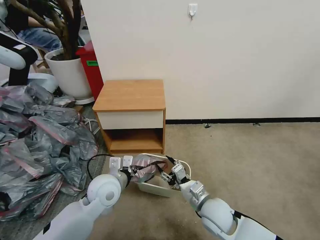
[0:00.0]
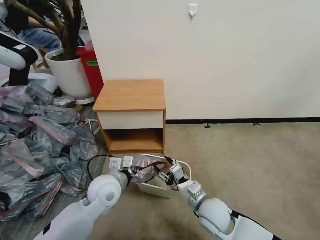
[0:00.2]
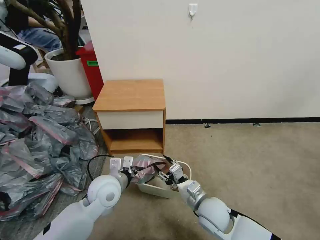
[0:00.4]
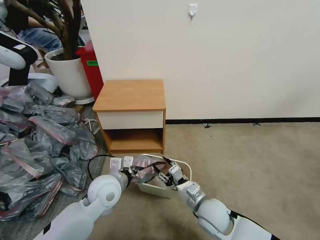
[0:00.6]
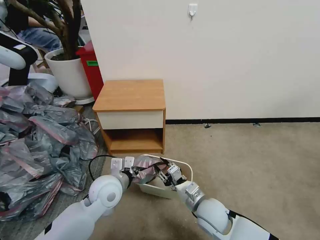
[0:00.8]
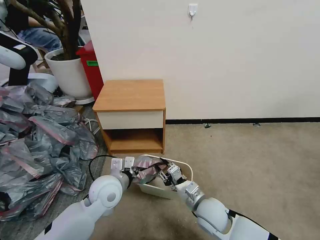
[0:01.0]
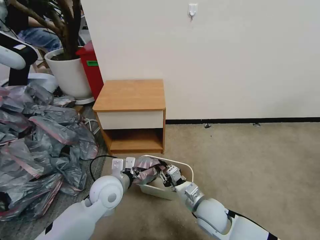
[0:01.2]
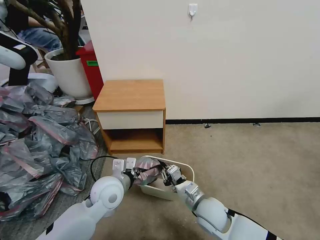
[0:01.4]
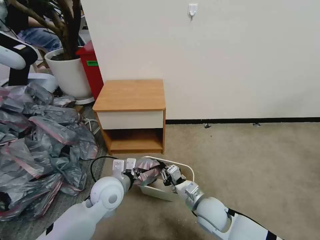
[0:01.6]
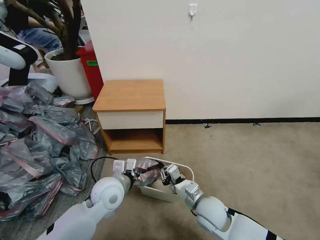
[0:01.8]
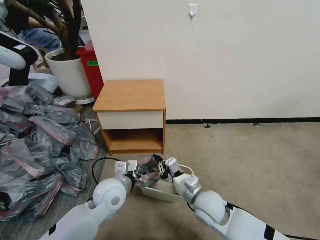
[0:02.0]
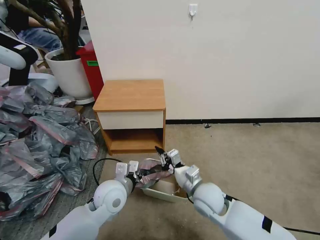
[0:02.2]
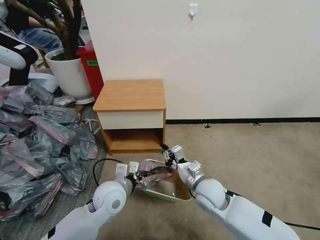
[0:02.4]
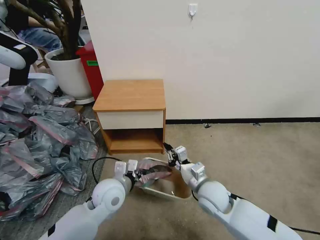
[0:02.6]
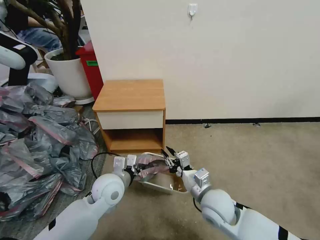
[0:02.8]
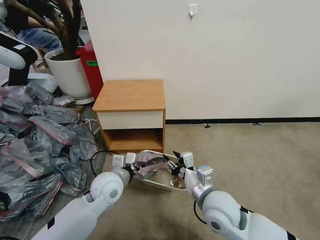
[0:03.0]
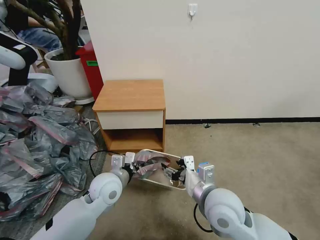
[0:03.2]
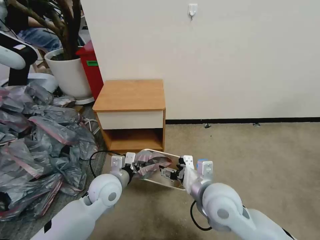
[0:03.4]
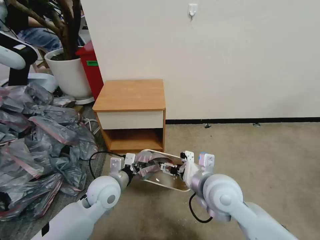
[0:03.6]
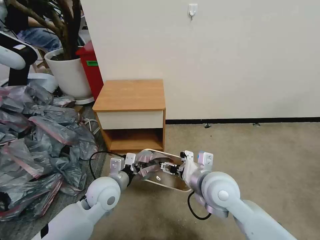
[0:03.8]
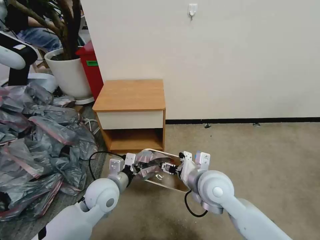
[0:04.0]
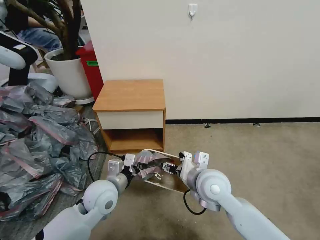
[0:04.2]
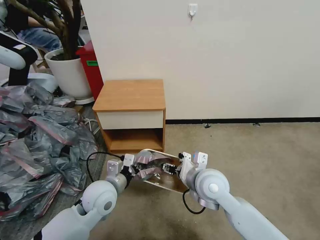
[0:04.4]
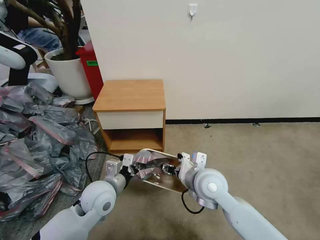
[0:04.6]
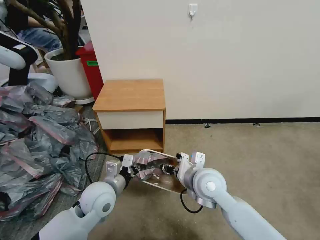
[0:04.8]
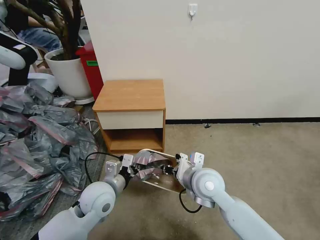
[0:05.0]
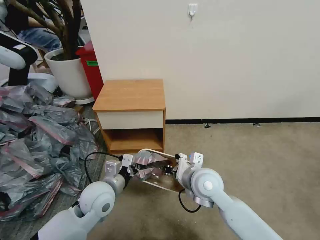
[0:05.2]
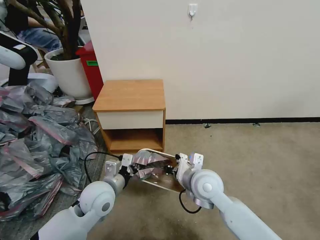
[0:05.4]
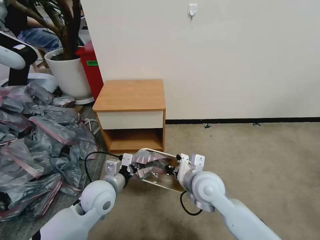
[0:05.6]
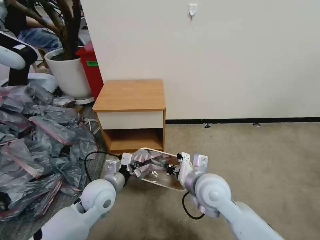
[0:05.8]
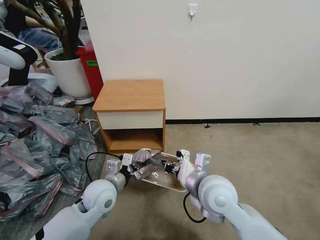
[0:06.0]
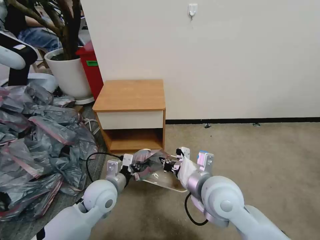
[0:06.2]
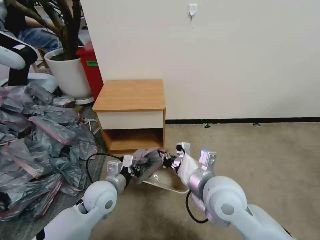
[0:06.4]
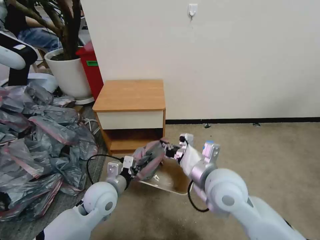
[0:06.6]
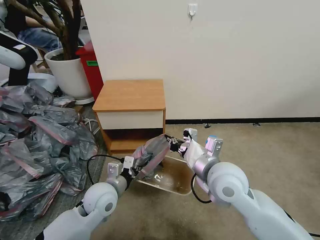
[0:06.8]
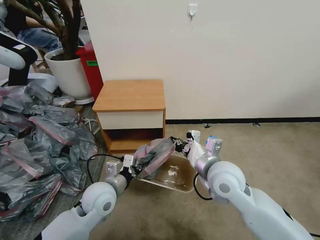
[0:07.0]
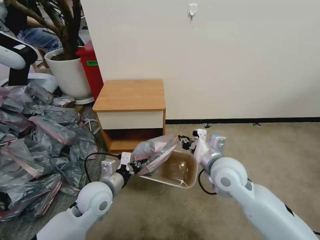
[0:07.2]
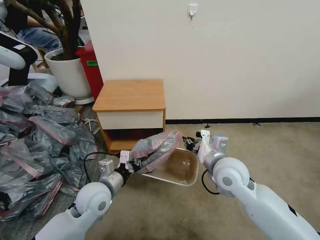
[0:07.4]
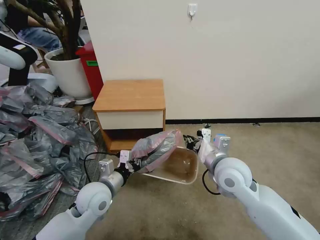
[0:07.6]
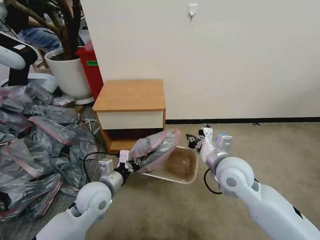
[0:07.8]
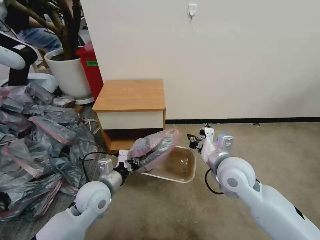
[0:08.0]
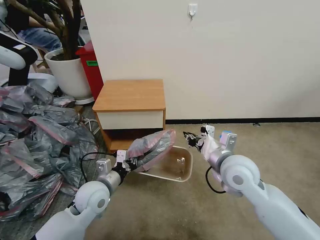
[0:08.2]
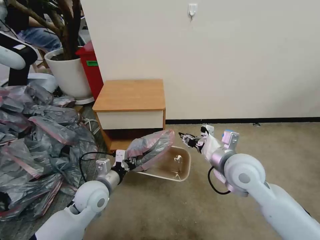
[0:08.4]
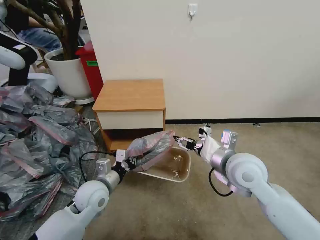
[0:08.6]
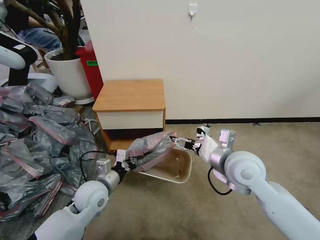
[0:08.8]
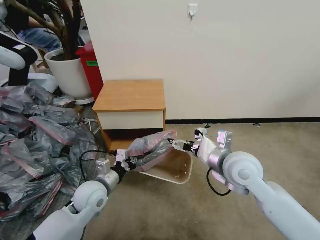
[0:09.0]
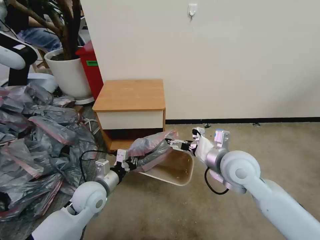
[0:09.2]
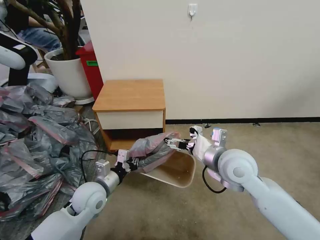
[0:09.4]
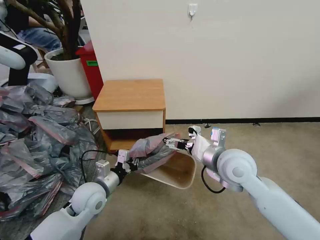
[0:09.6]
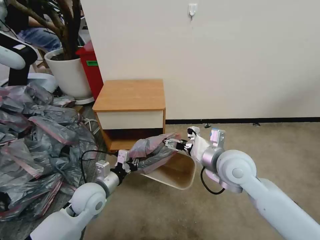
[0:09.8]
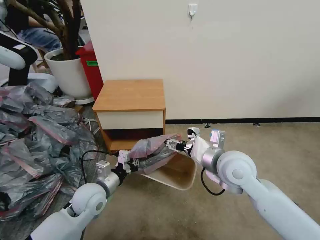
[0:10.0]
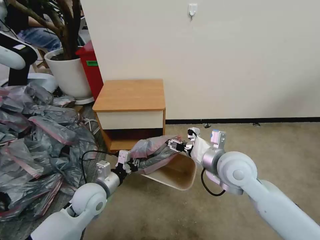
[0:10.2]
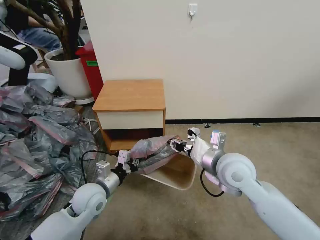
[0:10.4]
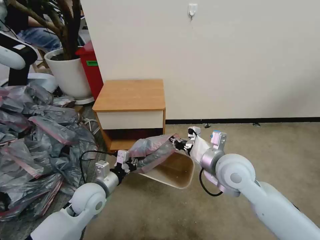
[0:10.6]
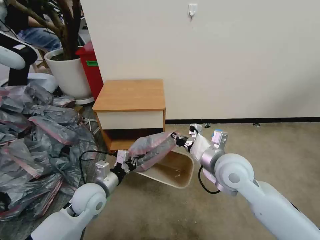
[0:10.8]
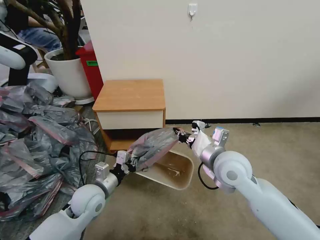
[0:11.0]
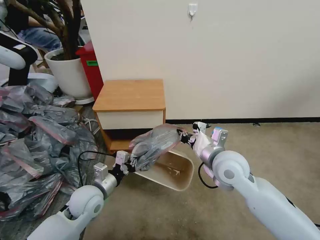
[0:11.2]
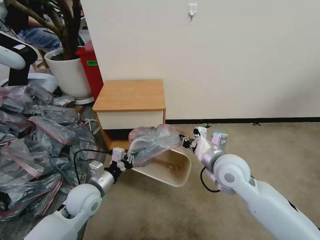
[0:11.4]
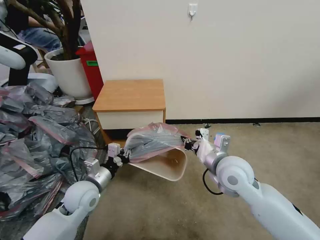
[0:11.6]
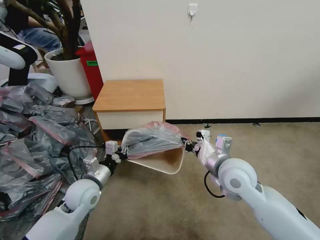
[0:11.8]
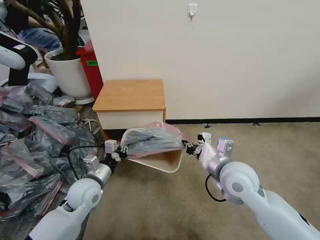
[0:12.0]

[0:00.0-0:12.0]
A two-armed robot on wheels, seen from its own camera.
Task of the whole recording: Pick up the garbage bag from the table and place it over the trash can.
0:00.0 to 0:01.6: The right gripper closes.
0:01.6 to 0:03.0: The right gripper goes about 10 cm upward, and opens its fingers.
0:03.0 to 0:04.4: The right gripper travels forward by approximately 5 cm.
0:04.4 to 0:06.0: The right gripper ends up approximately 5 cm from where it was, and closes.
0:06.0 to 0:07.6: The right gripper travels to the right and forward by about 10 cm.
0:07.6 to 0:09.0: The right gripper opens.
0:09.0 to 0:10.4: The right gripper closes up.
0:10.4 to 0:12.0: The grippers move only a little.

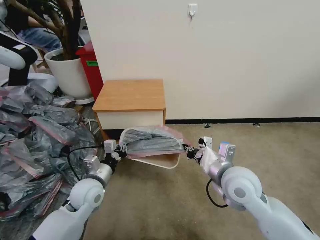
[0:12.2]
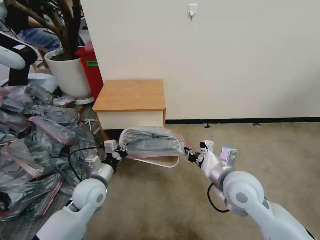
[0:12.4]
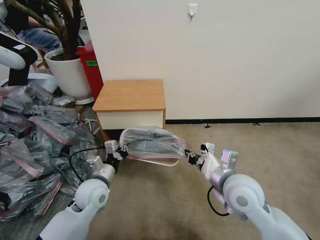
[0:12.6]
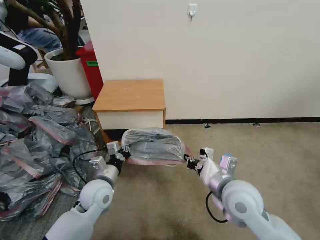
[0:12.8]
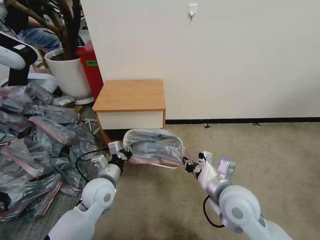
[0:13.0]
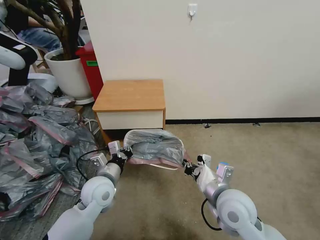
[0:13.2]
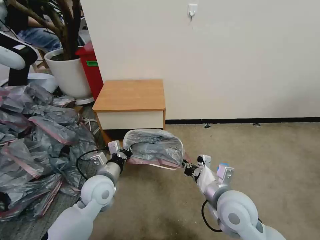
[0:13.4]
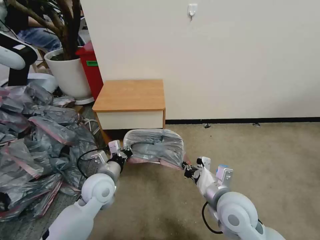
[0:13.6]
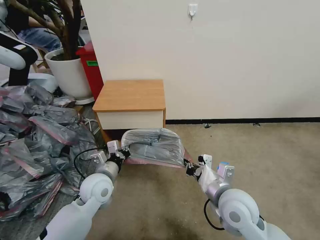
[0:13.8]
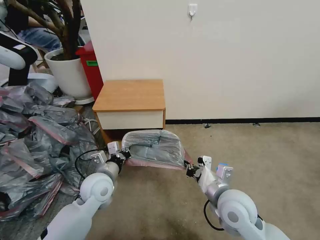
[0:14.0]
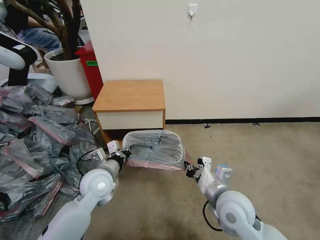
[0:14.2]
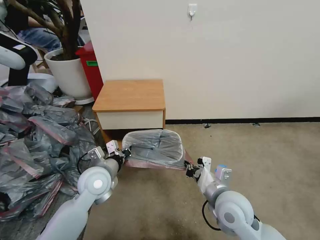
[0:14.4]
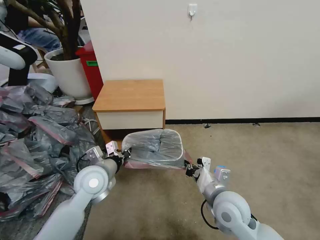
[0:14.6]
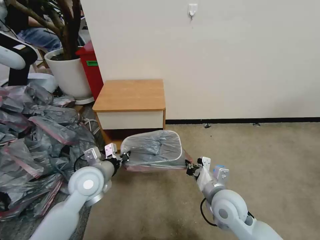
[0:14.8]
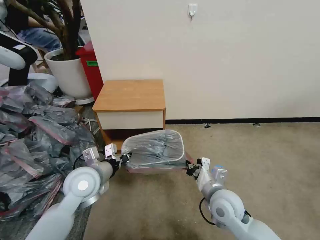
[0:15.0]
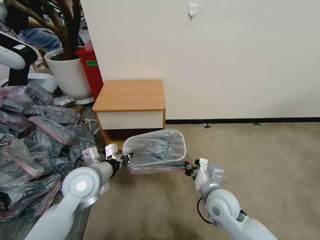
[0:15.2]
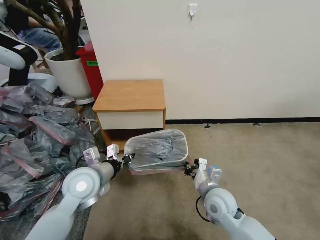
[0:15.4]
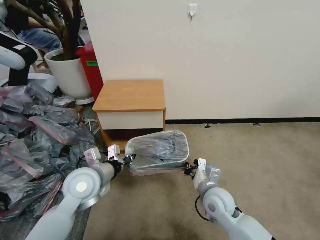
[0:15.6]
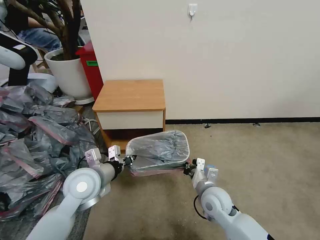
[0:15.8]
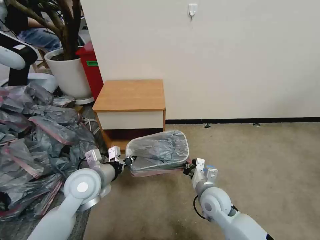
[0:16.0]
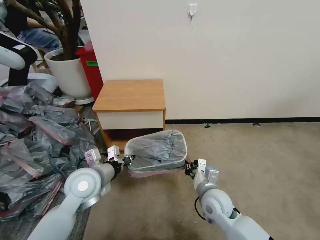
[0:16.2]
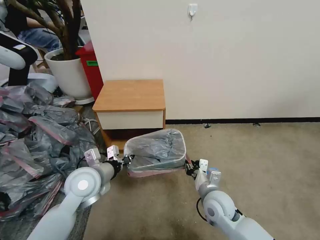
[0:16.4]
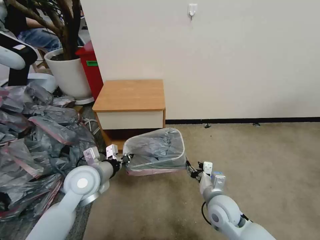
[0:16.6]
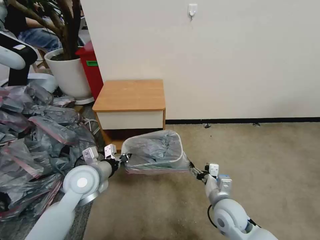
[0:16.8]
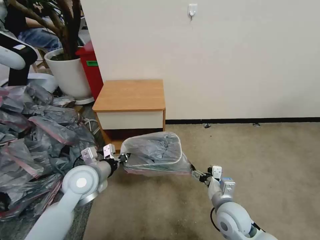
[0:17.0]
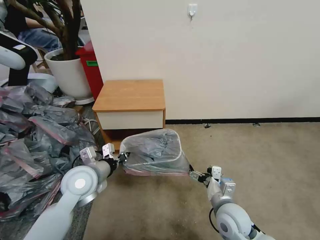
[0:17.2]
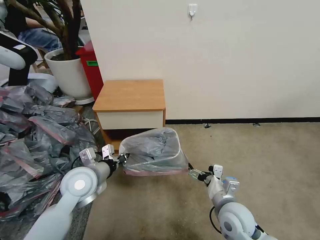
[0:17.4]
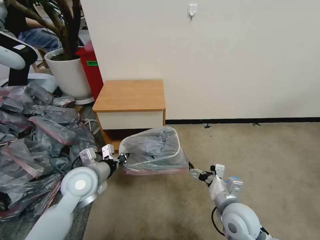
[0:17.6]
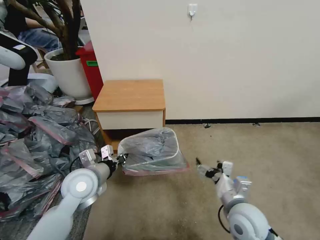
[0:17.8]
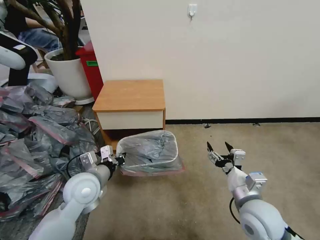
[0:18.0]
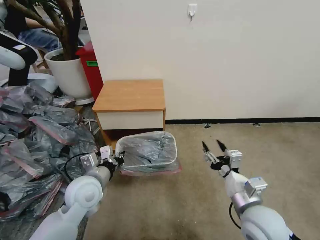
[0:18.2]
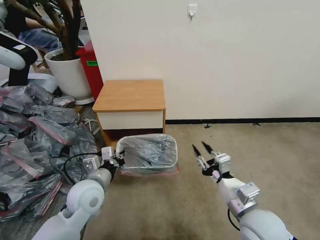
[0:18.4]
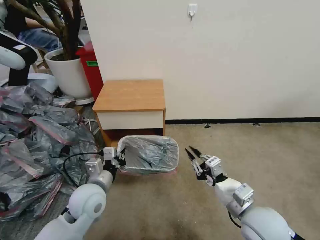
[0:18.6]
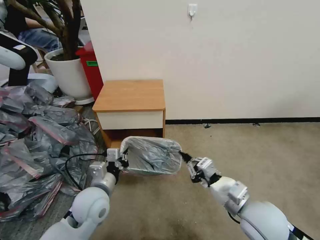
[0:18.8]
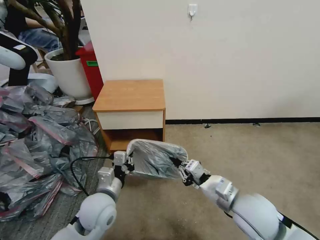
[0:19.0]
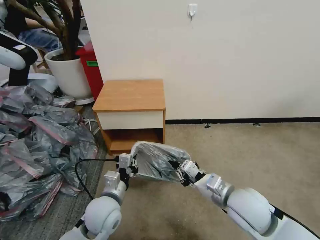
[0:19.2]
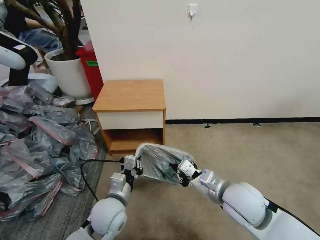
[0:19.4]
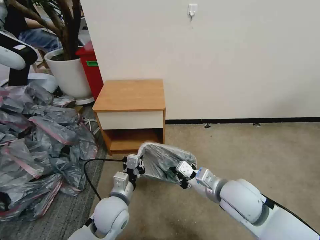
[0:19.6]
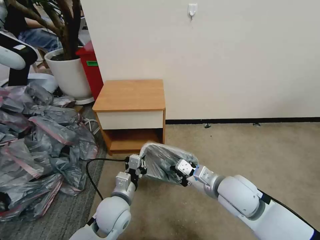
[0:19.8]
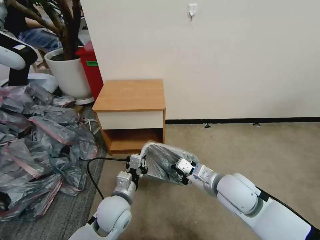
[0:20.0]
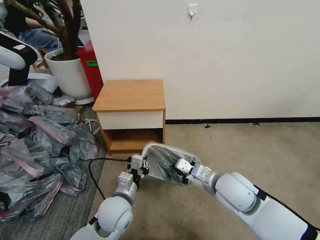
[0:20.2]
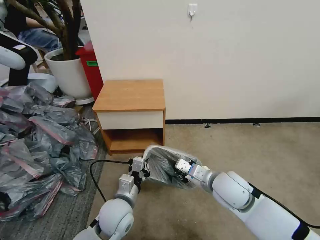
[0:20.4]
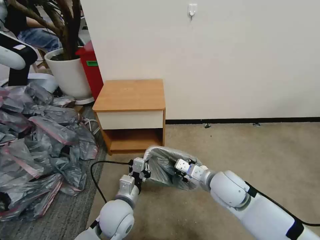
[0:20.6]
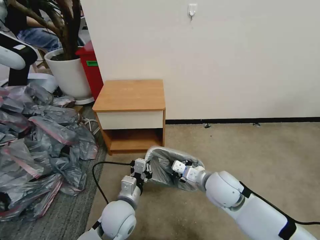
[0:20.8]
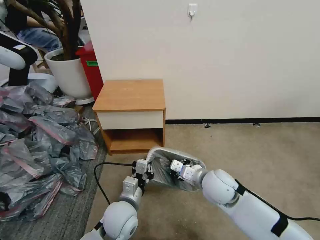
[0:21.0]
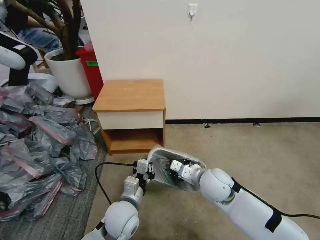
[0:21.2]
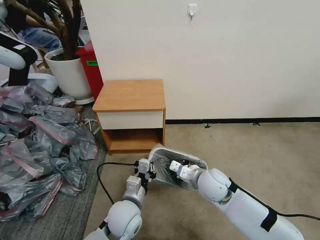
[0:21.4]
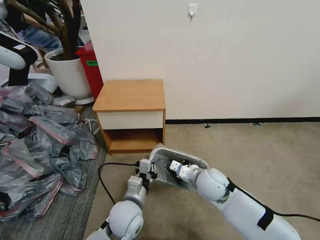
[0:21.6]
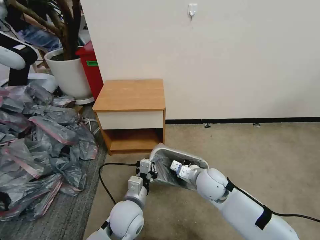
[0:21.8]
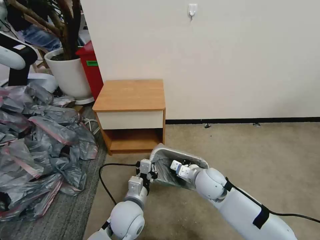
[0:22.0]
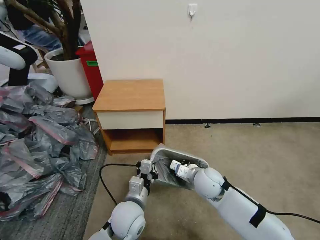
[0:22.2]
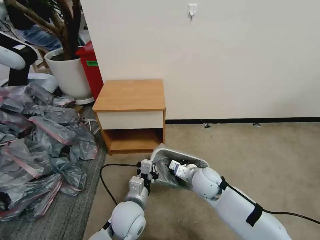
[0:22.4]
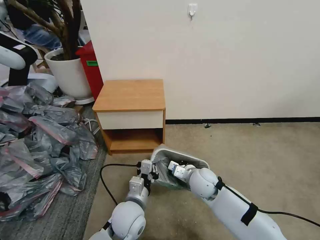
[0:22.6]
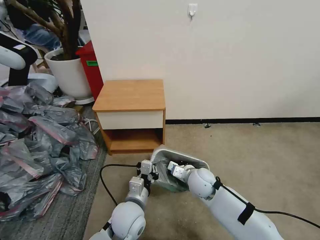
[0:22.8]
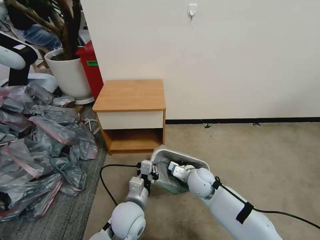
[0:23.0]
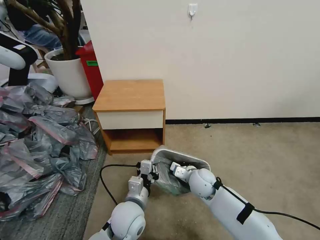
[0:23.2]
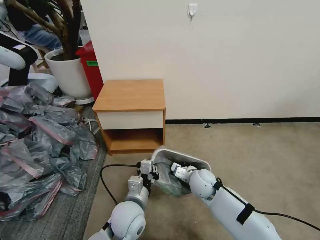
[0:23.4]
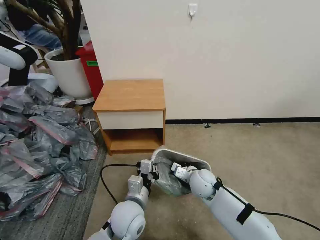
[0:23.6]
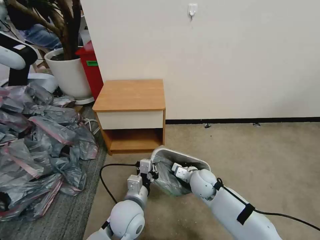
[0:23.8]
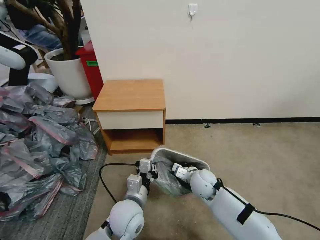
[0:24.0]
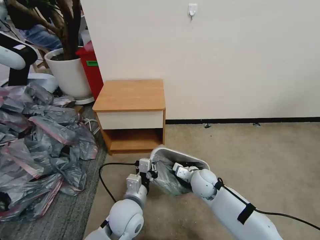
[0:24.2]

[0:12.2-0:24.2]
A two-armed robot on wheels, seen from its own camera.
Task of the whole recording: Pick up the garbage bag from the table and place it over the trash can.
0:12.2 to 0:13.8: The right gripper moves roughly 5 cm.
0:13.8 to 0:15.2: The right gripper goes about 10 cm downward. The left gripper moves upward, some 5 cm.
0:15.2 to 0:16.6: The right gripper opens its fingers.
0:16.6 to 0:18.2: The right gripper moves upward, backward and to the right, approximately 15 cm, and opens and closes again.
0:18.2 to 0:19.8: The left gripper is displaced to the right and downward by roughly 10 cm. The right gripper goes roughly 5 cm forward, and closes its fingers.
0:19.8 to 0:21.2: The right gripper is displaced downward and forward by some 10 cm.
0:21.2 to 0:22.6: The right gripper shifts roughly 5 cm downward.
0:22.6 to 0:24.2: The grippers stay close to where they were, moving slightly.
